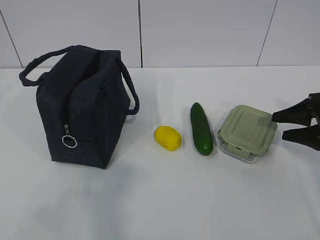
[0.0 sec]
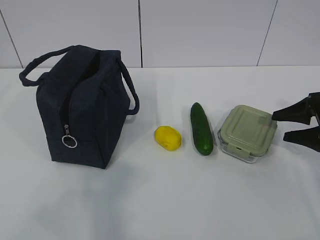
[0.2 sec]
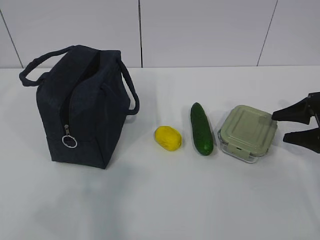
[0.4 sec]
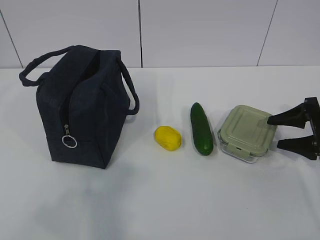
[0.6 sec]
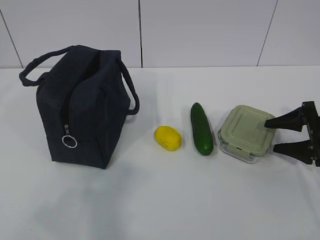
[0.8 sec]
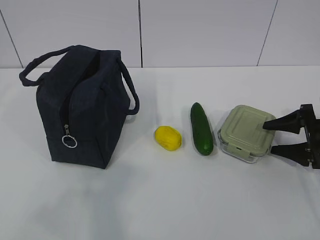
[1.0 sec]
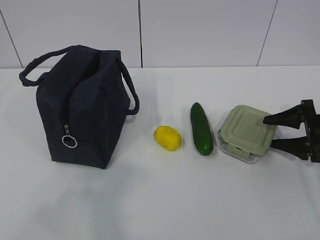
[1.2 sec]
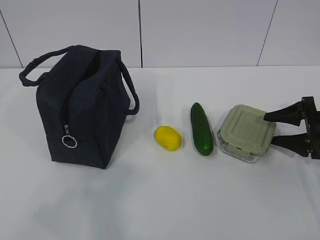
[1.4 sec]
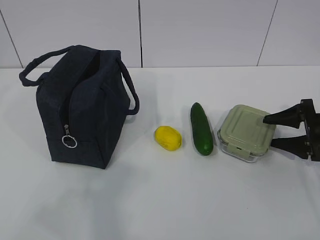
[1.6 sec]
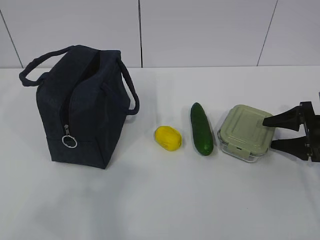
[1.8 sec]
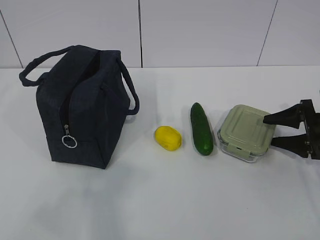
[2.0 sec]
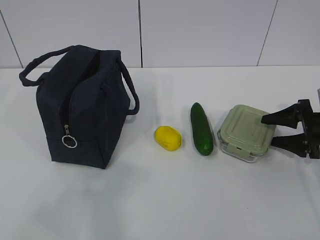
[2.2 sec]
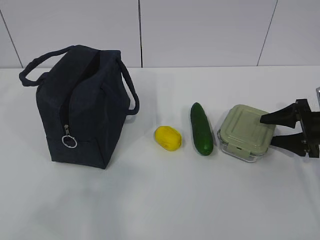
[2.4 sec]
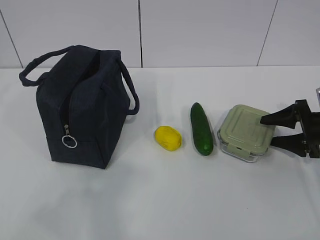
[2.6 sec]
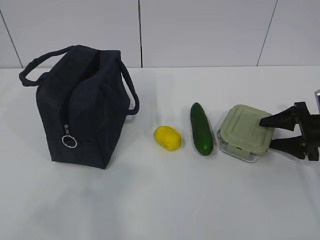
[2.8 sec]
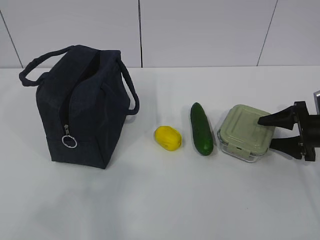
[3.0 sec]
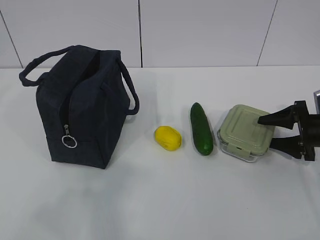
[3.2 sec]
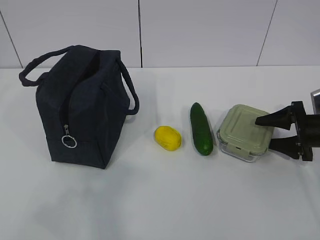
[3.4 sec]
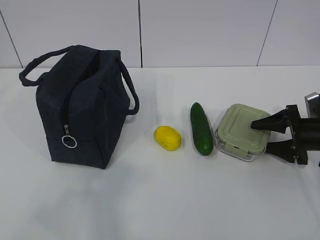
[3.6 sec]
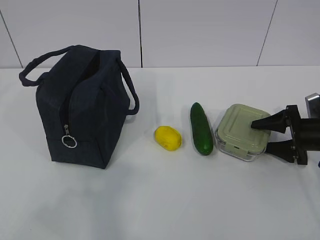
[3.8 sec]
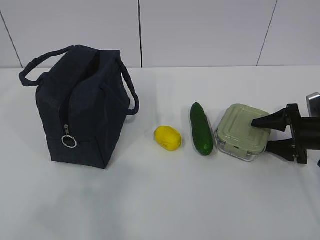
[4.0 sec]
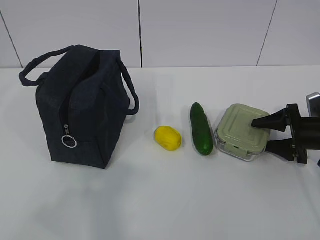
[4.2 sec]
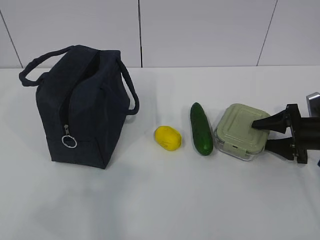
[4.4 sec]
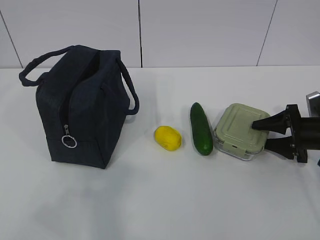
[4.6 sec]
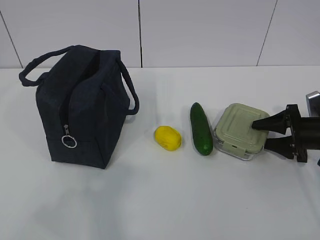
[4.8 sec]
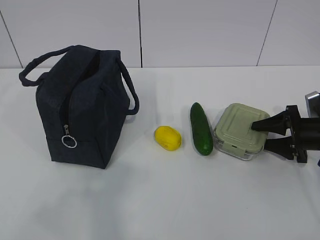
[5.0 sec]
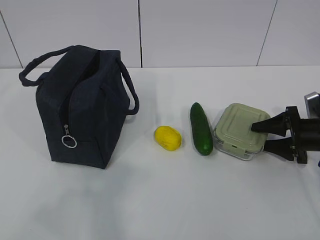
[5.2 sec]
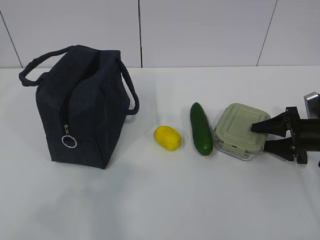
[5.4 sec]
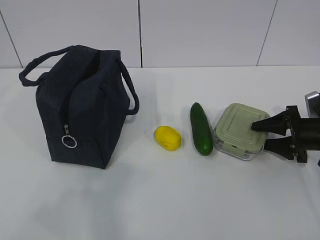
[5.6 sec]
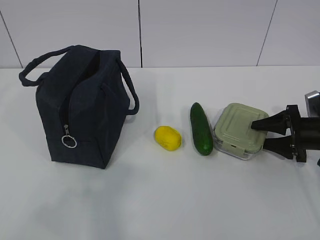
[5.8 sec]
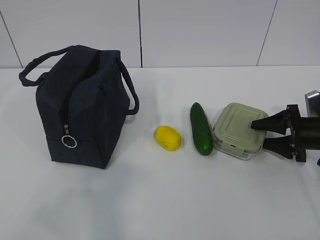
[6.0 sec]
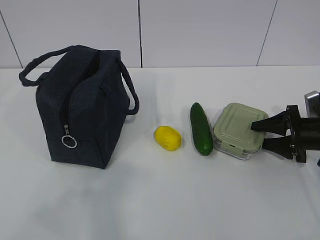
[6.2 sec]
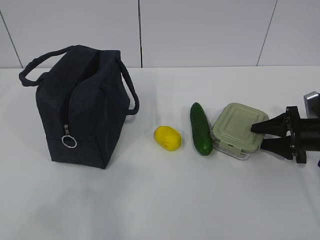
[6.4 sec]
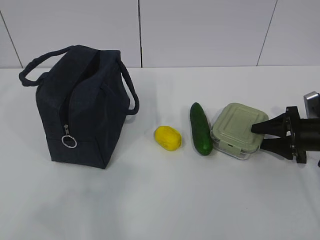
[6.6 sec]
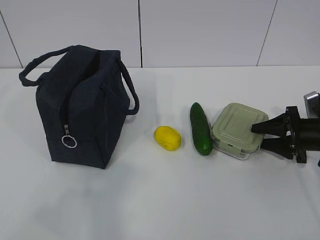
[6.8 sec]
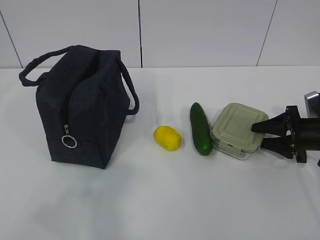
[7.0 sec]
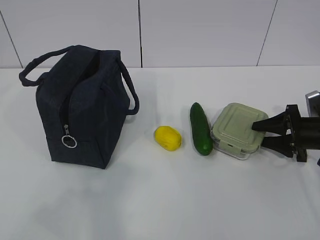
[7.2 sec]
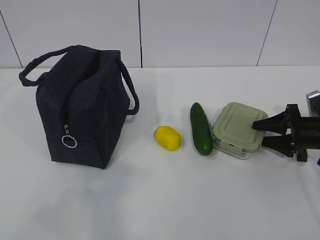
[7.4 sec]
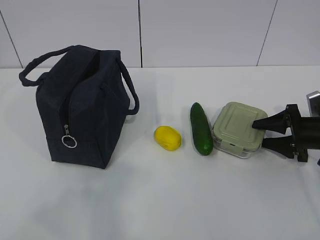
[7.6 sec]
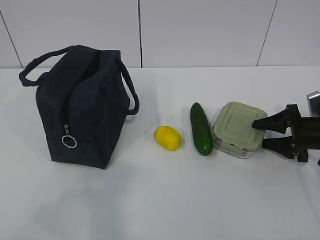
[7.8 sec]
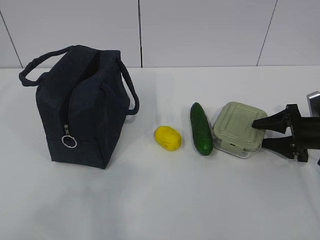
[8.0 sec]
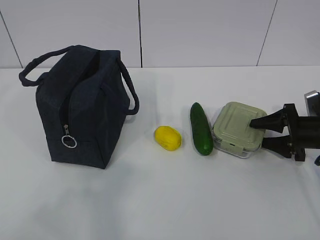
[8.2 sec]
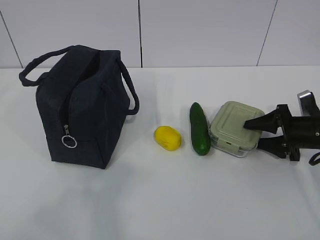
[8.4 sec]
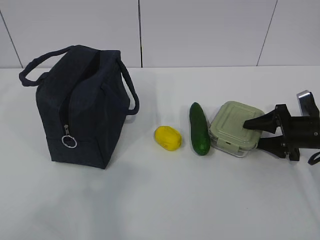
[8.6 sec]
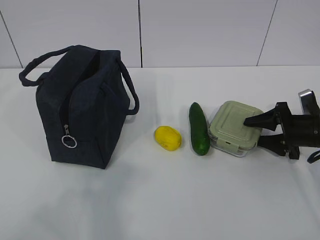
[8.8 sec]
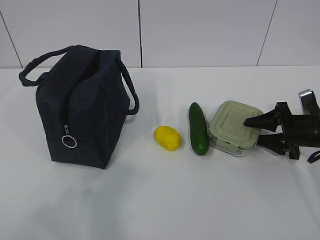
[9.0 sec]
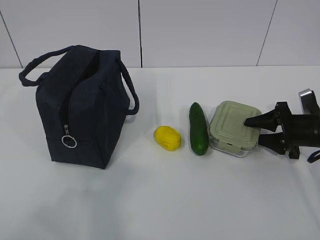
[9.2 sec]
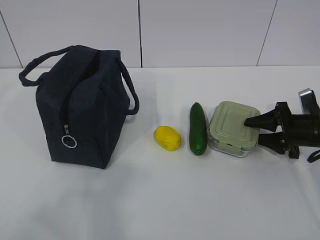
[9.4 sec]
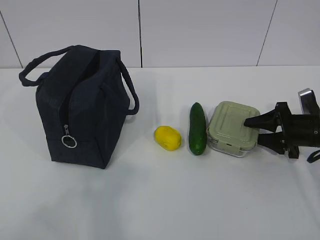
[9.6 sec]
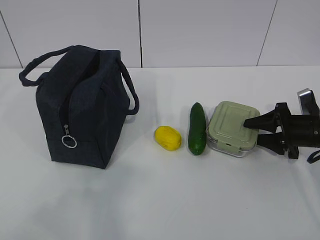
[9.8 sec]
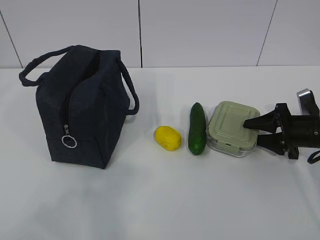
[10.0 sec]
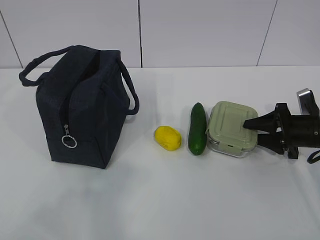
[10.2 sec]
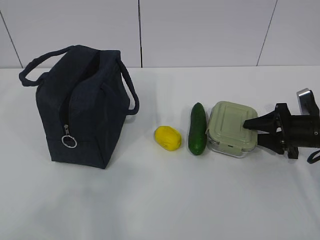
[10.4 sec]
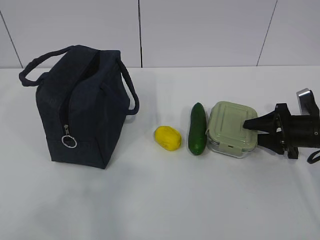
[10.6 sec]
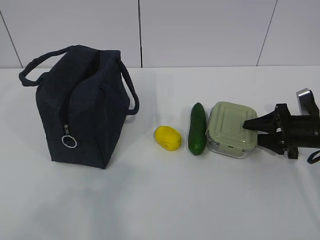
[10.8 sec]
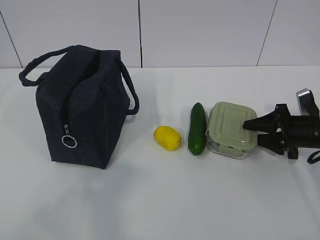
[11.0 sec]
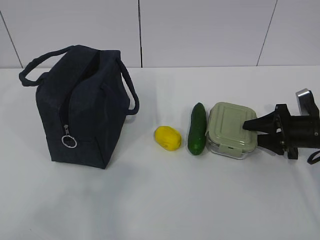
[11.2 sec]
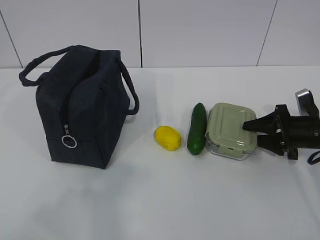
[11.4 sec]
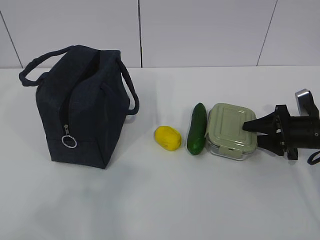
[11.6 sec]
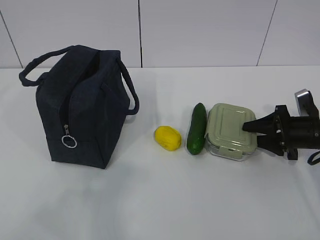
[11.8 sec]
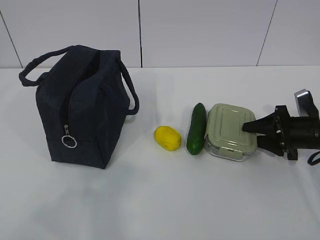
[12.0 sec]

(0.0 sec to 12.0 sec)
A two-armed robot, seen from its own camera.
0.0 sec - 1.6 sec: The grippers make only small movements.
1.6 sec - 3.0 sec: Both grippers stay about where they are.
3.0 sec - 4.4 sec: The grippers move only a little.
4.4 sec - 6.0 sec: The two grippers keep their place.
6.0 sec - 7.6 sec: Neither gripper changes place.
7.6 sec - 9.0 sec: There are only small adjustments of the grippers.
9.0 sec - 10.4 sec: Both grippers stay put.
10.4 sec - 12.0 sec: Both grippers stay put.

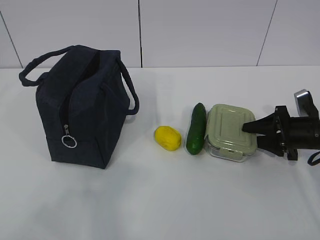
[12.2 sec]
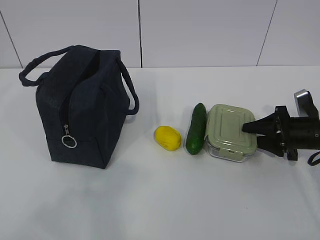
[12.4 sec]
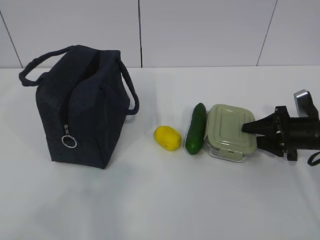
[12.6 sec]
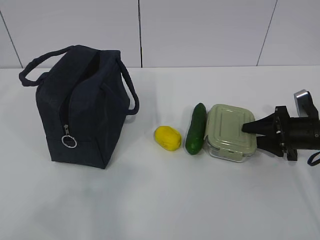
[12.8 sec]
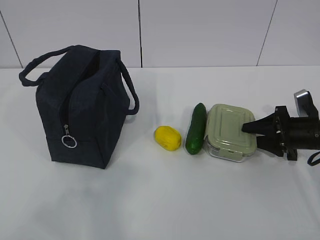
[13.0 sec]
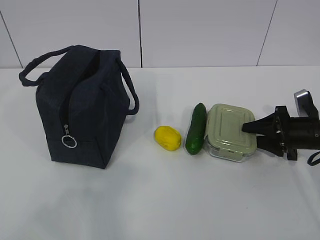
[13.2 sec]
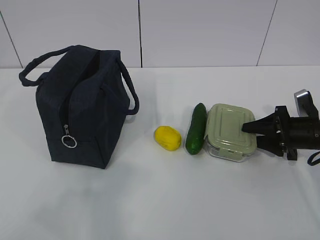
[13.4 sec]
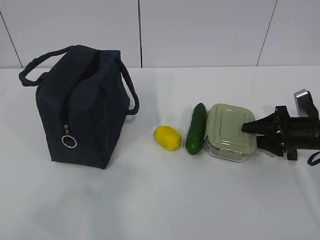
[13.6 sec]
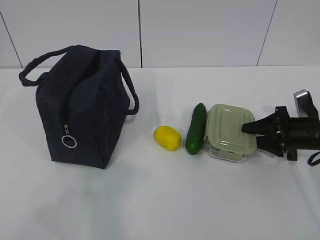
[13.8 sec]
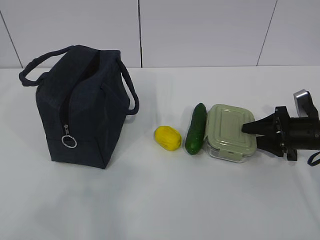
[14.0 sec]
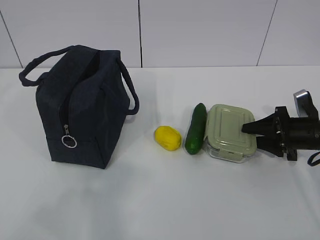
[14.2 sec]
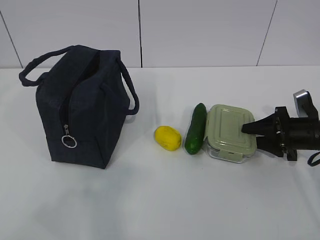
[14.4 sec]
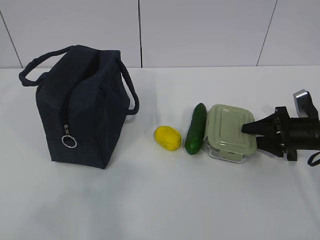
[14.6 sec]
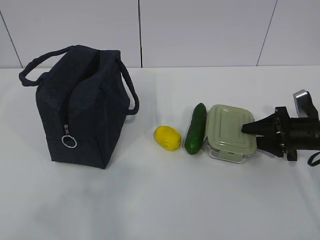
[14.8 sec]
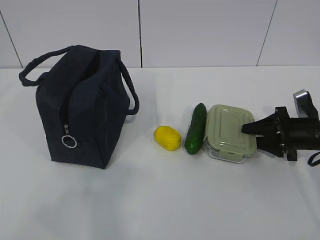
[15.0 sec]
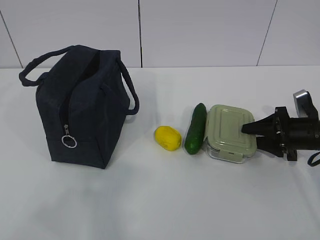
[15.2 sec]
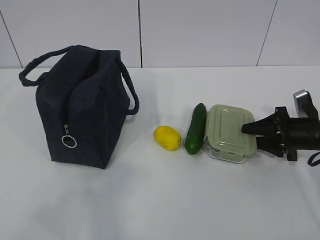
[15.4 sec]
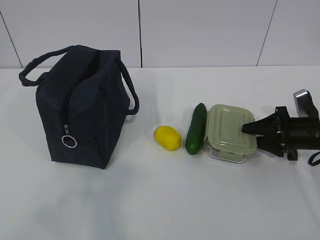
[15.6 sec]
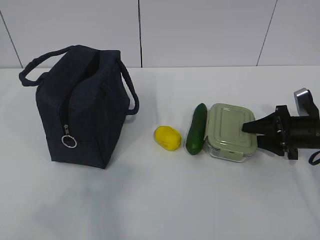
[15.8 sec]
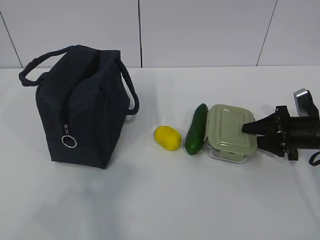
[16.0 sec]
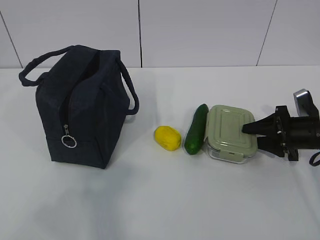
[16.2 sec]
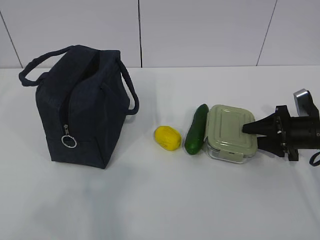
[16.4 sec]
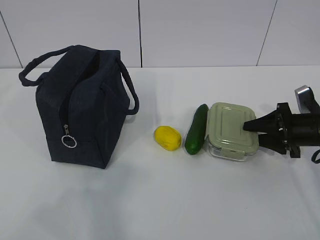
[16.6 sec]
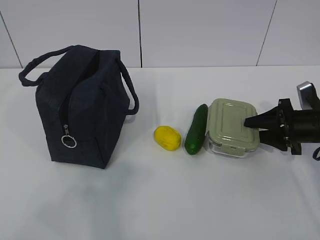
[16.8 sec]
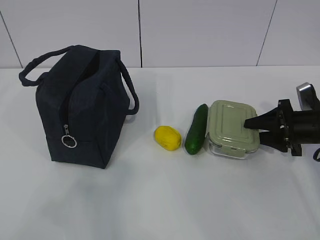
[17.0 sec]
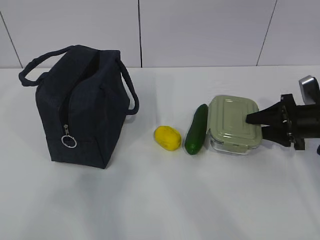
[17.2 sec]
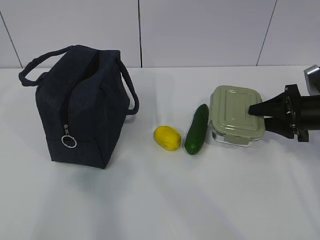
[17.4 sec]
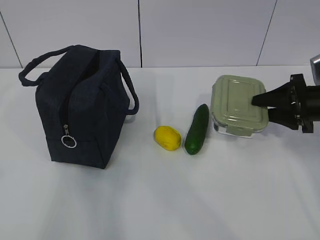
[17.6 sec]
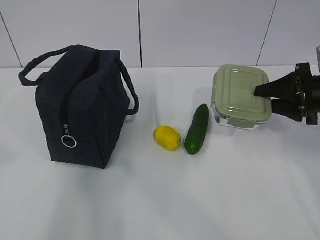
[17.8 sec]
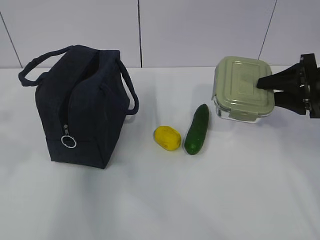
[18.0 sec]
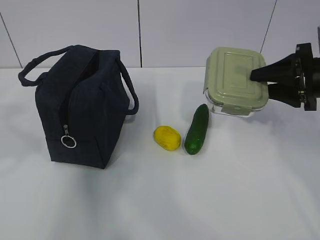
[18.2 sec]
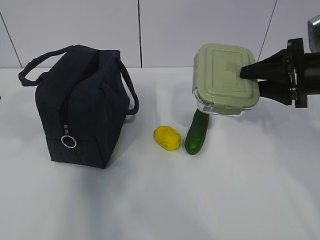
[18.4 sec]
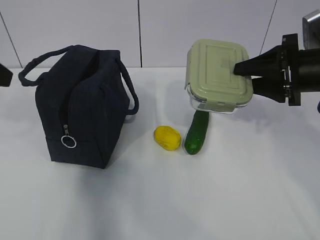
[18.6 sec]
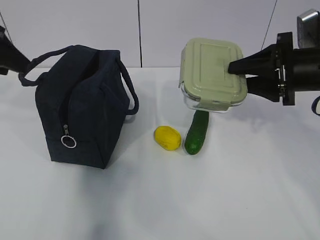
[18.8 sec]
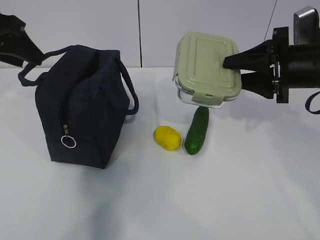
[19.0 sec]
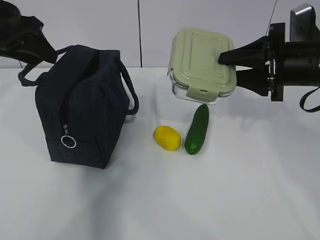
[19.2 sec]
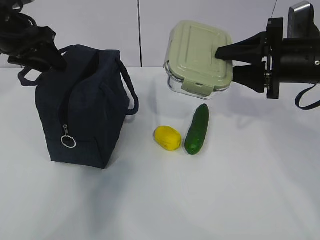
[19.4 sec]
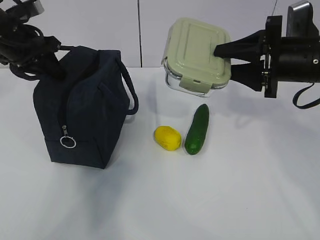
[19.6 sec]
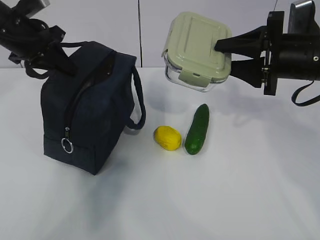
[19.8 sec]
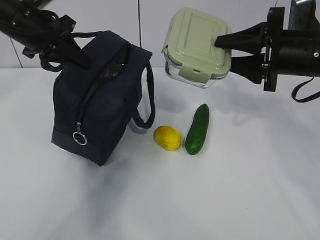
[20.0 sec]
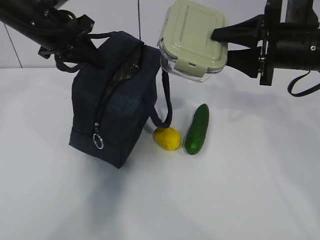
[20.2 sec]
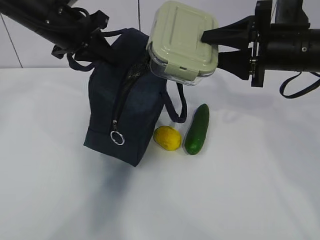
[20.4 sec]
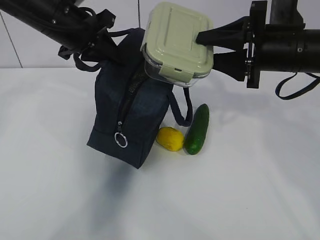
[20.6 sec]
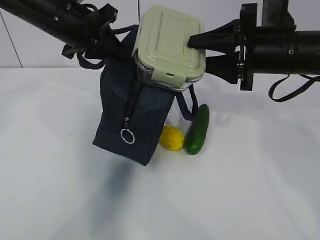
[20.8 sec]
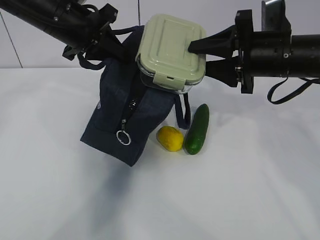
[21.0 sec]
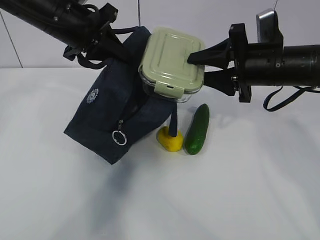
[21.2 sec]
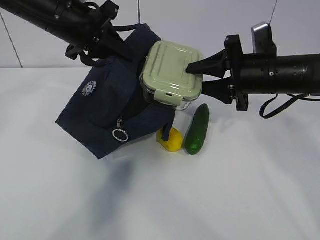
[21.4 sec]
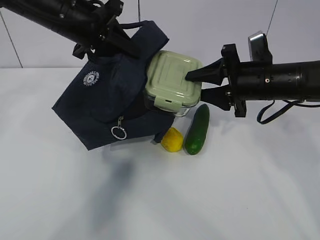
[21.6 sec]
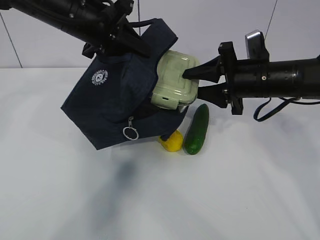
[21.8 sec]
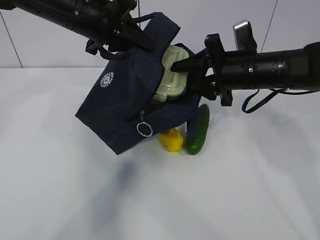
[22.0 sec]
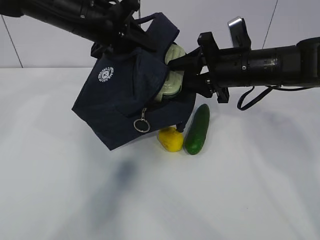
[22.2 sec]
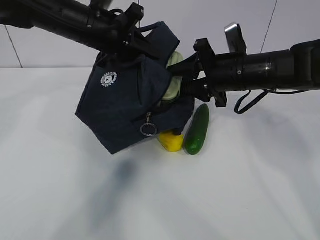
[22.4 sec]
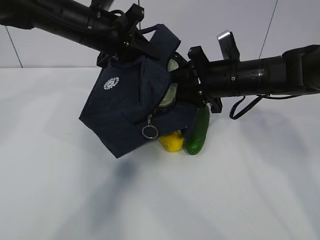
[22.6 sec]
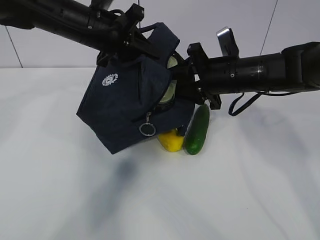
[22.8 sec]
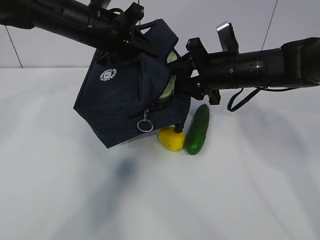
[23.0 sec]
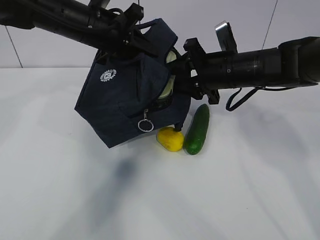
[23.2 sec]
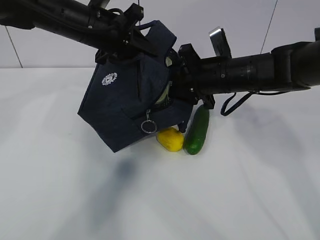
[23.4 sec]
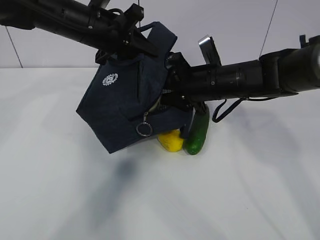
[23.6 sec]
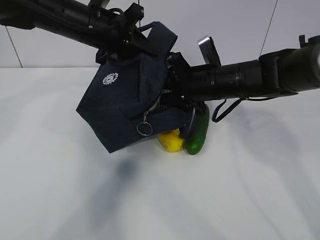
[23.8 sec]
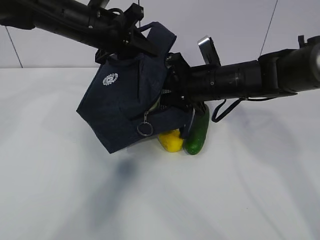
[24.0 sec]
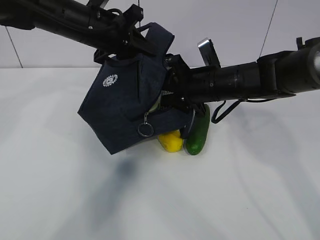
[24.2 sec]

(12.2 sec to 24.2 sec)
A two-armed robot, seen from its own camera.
Step, 16.8 sec - 19.4 sec: Place it into the bag with your right hand.
Step, 19.6 sec - 23.6 sec: Grab the cucumber with your right hand.
12.2 sec - 16.6 sec: Both grippers stay put.
16.6 sec - 18.2 sec: The left gripper shifts about 15 cm forward. The right gripper heads upward, covering about 15 cm.
18.2 sec - 19.8 sec: The left gripper heads forward, covering some 25 cm, and closes. Meanwhile the right gripper shifts roughly 5 cm to the left.
19.8 sec - 21.2 sec: The left gripper travels to the right by roughly 10 cm.
21.2 sec - 22.6 sec: The right gripper changes place by roughly 5 cm.
22.6 sec - 24.2 sec: The grippers make only small movements.
